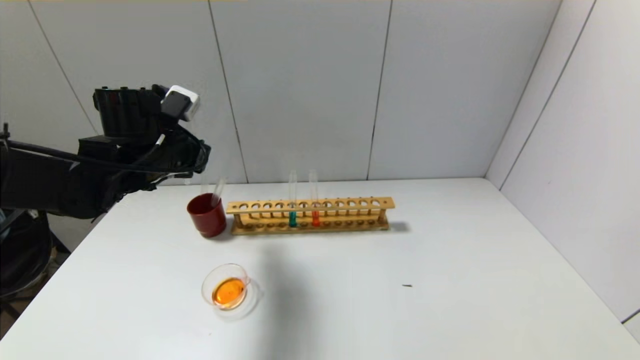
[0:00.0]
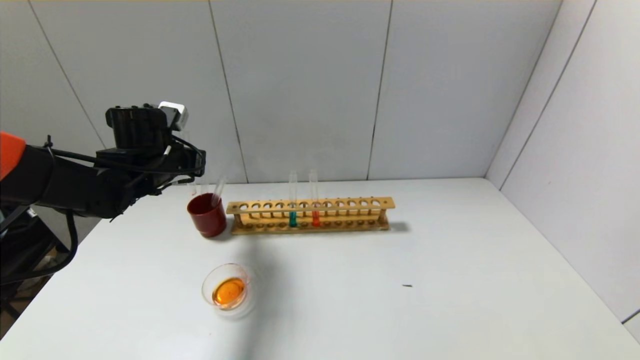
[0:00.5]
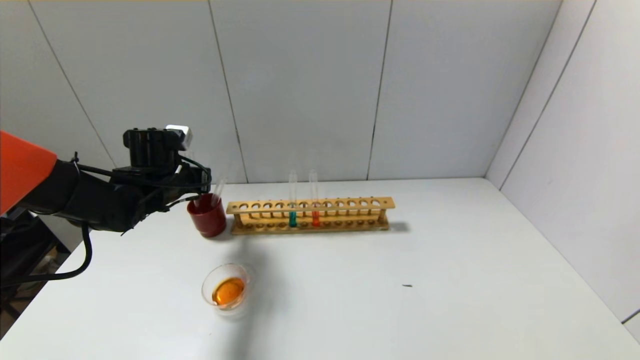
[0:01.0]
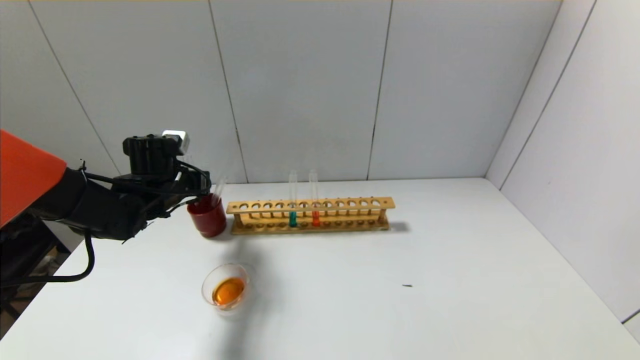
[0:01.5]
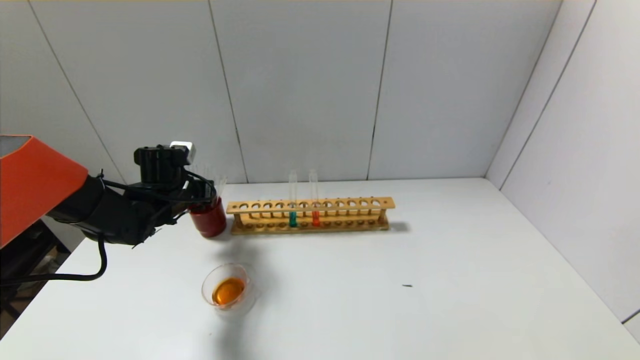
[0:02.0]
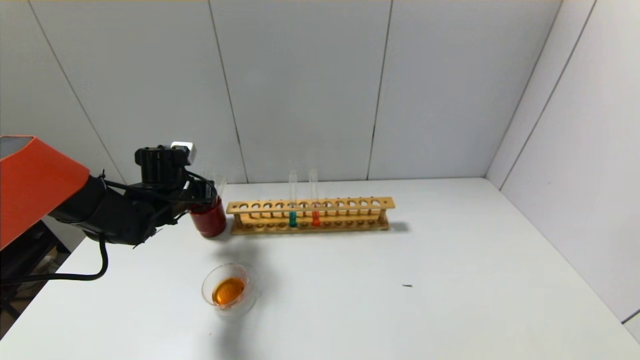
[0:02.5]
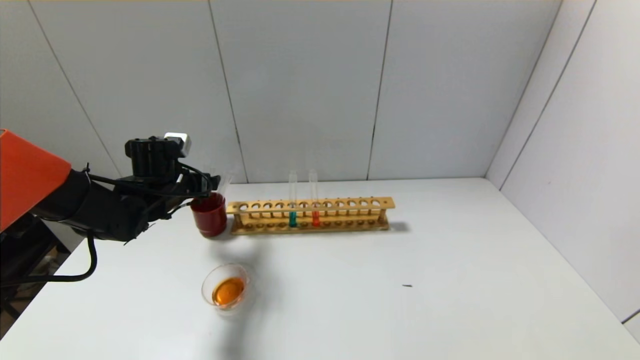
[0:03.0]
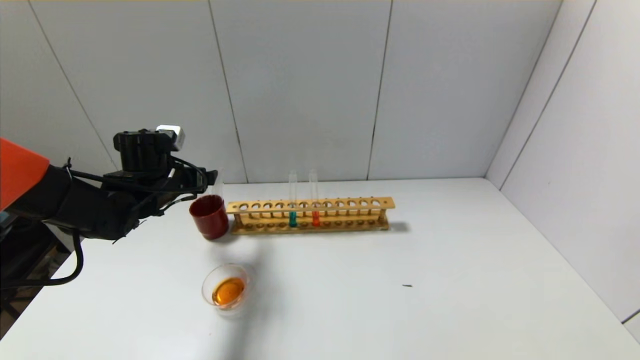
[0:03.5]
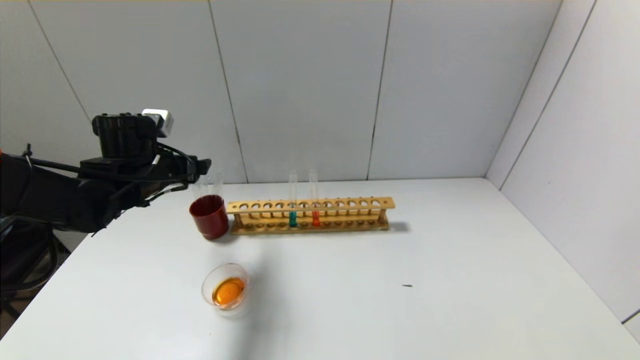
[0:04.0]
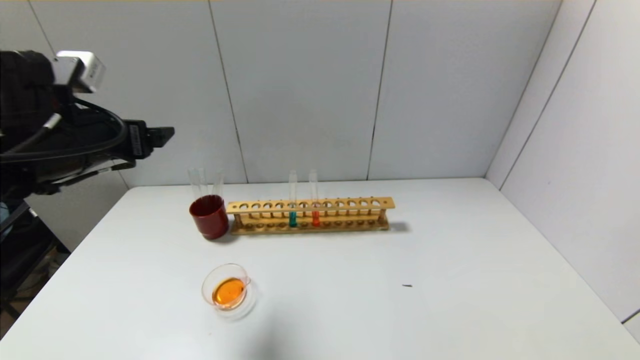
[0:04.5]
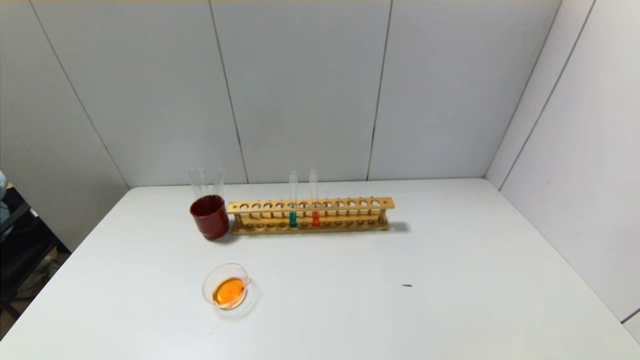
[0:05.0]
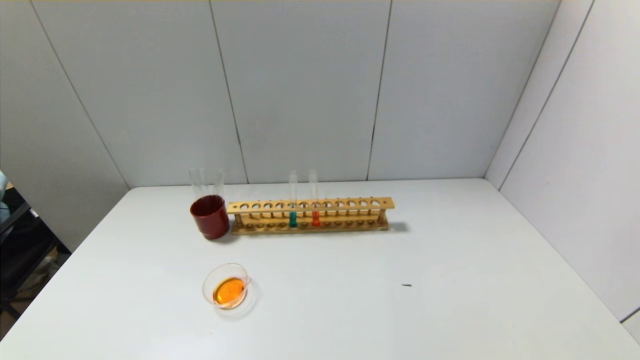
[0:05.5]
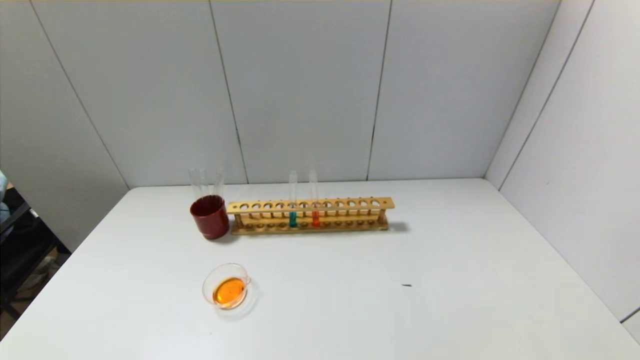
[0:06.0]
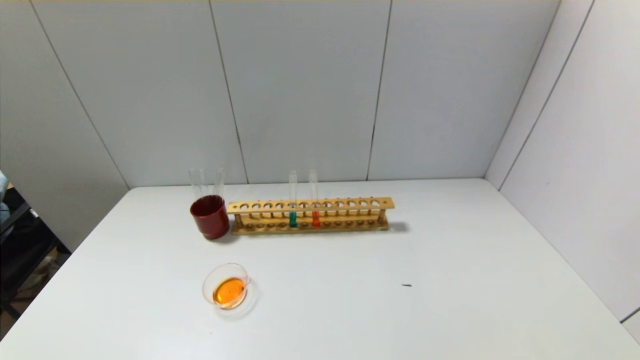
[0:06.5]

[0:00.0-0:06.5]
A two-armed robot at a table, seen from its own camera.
Step, 0:00.0 to 0:02.5: Place the test tube into the brown cup with the left gripper.
0:00.0 to 0:02.0: The left gripper goes approximately 10 cm downward.
0:02.0 to 0:04.5: The left gripper heads upward and backward, covering some 20 cm, and opens its fingers.
0:04.5 to 0:06.5: The left gripper goes roughly 35 cm backward and downward.
